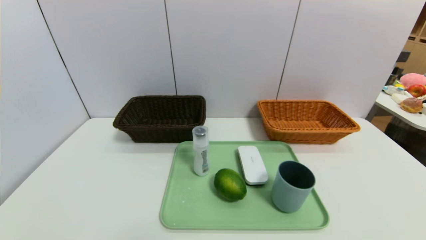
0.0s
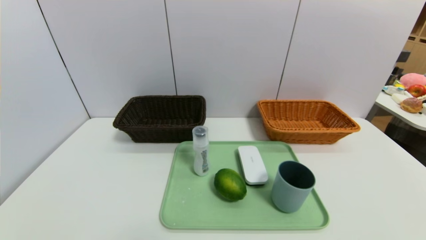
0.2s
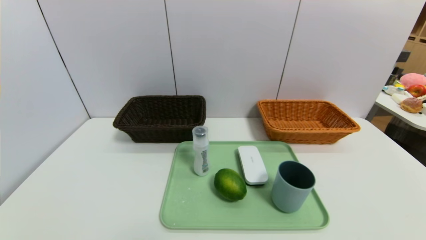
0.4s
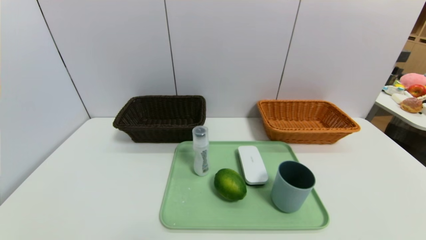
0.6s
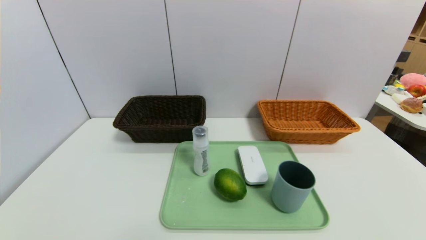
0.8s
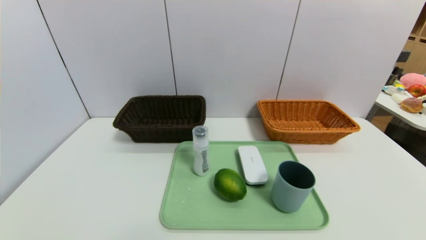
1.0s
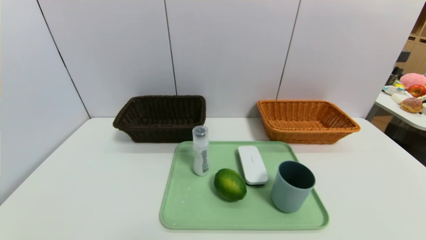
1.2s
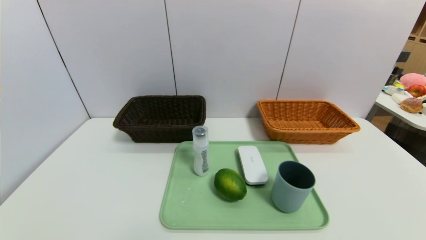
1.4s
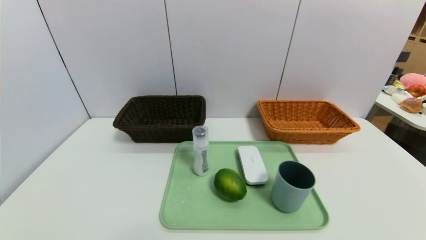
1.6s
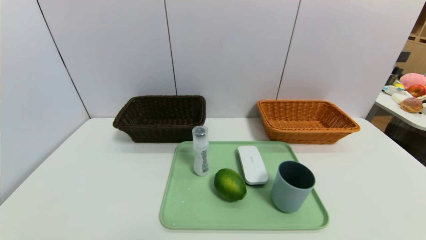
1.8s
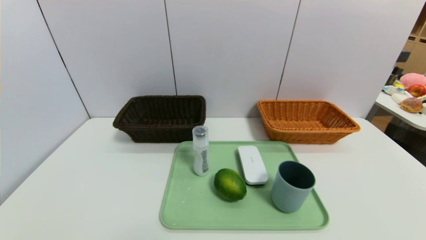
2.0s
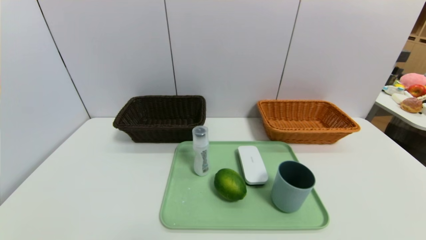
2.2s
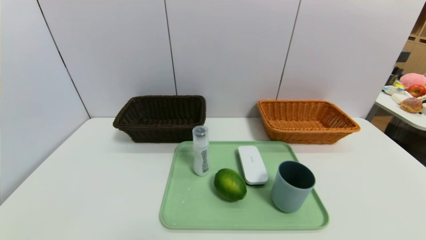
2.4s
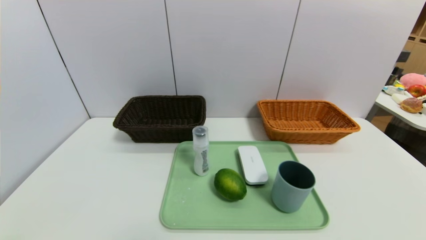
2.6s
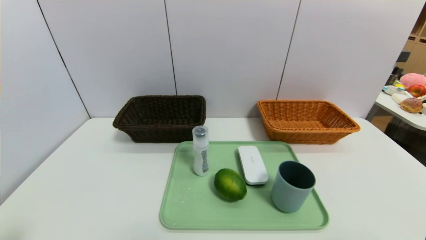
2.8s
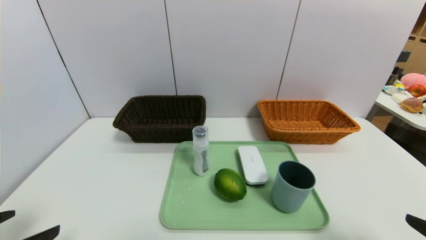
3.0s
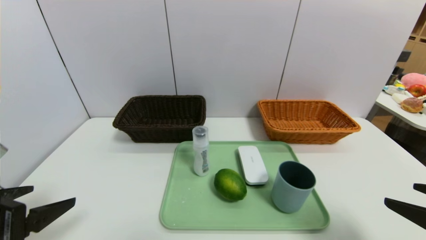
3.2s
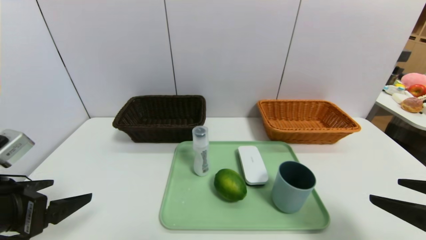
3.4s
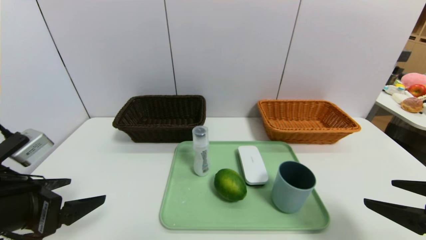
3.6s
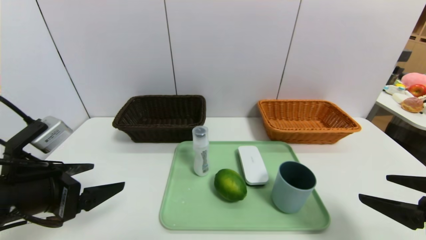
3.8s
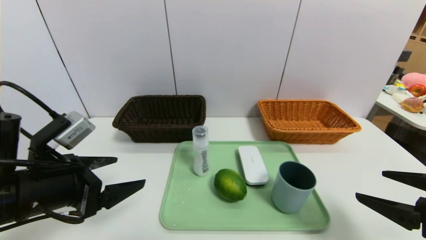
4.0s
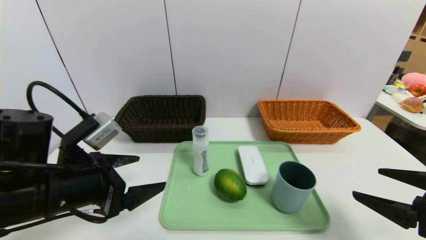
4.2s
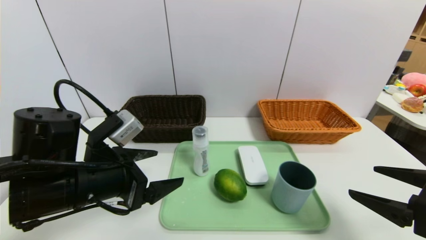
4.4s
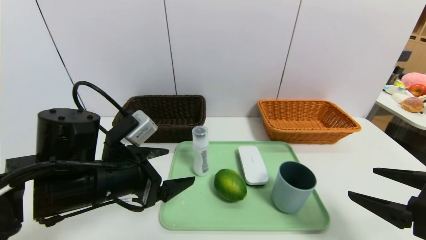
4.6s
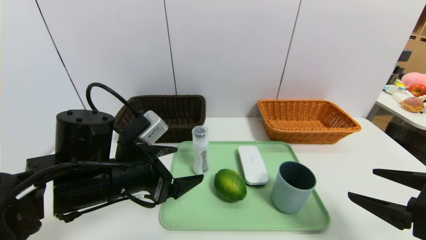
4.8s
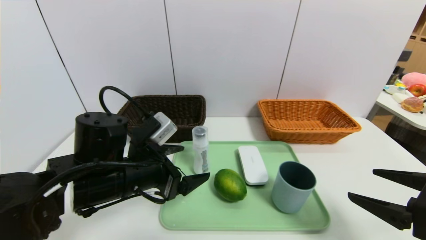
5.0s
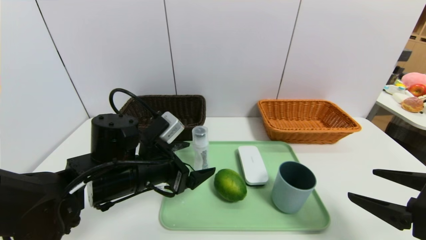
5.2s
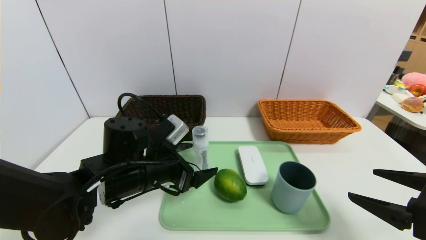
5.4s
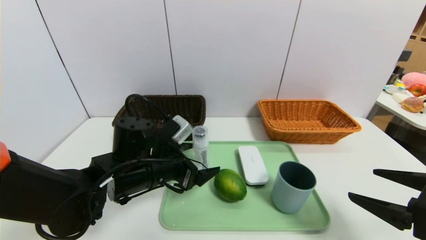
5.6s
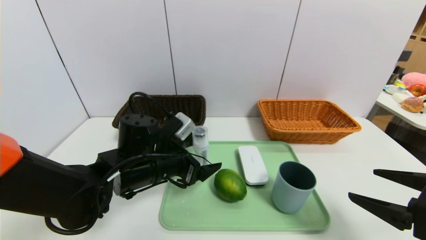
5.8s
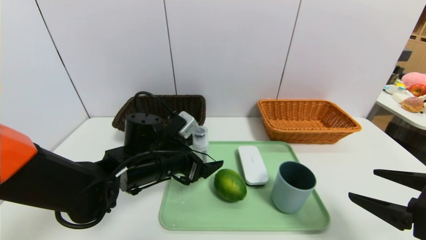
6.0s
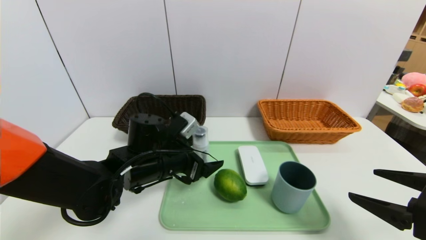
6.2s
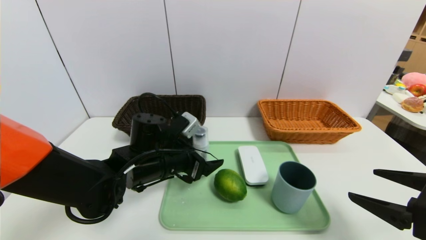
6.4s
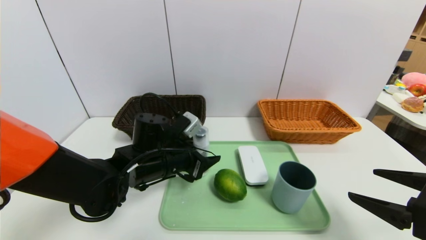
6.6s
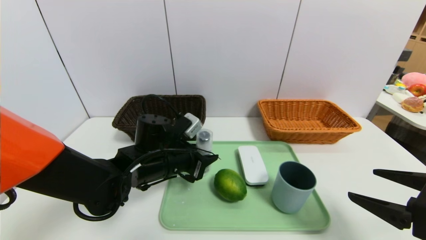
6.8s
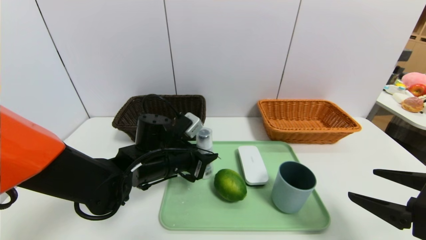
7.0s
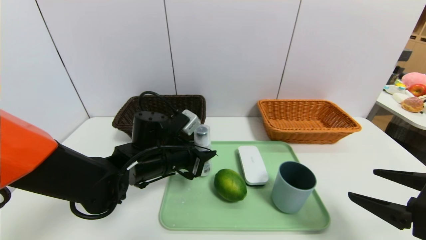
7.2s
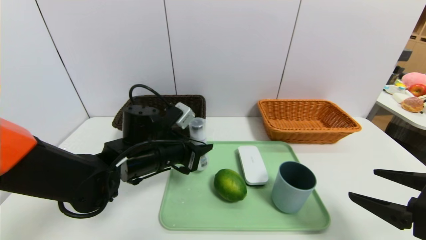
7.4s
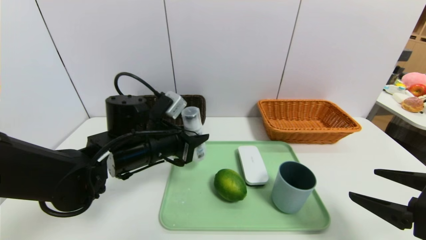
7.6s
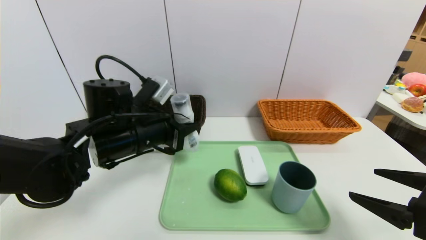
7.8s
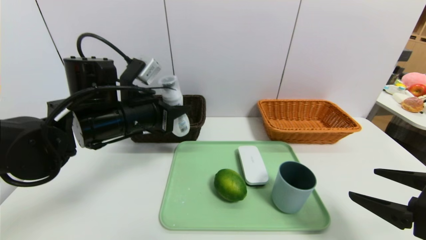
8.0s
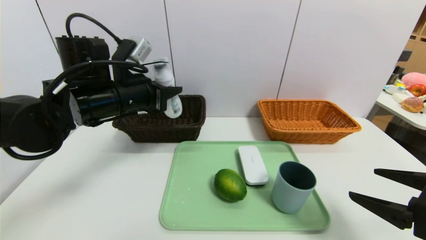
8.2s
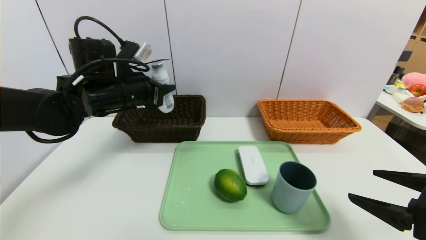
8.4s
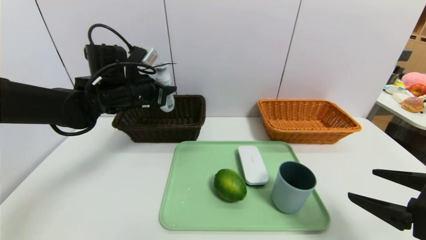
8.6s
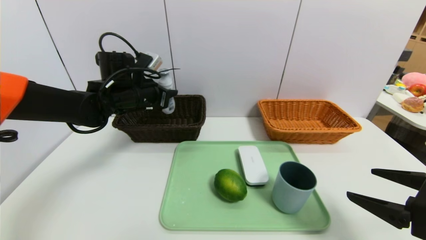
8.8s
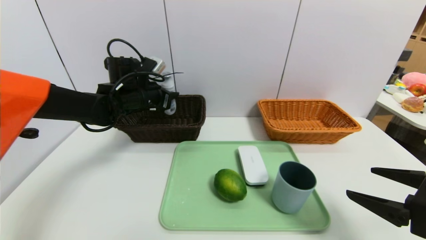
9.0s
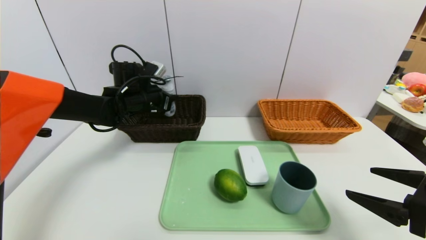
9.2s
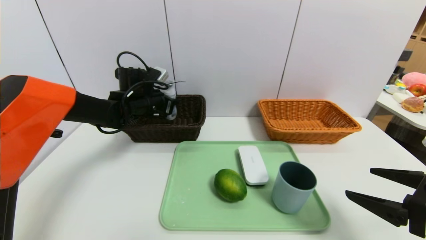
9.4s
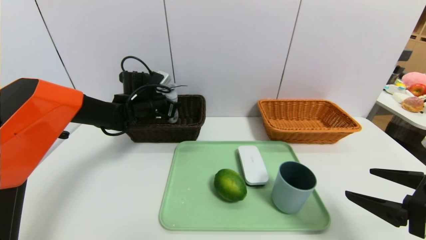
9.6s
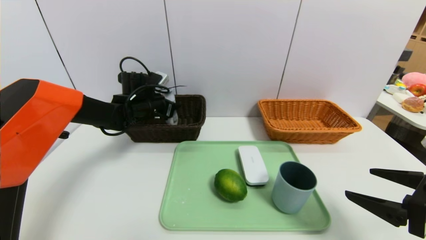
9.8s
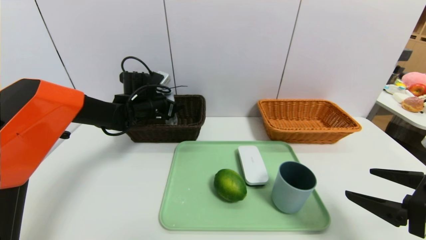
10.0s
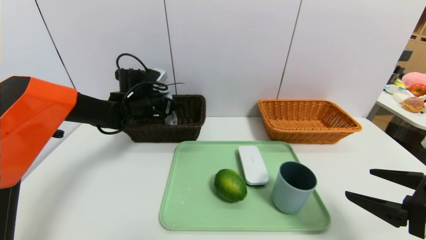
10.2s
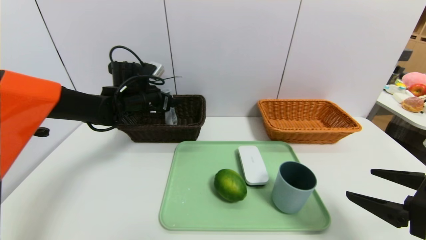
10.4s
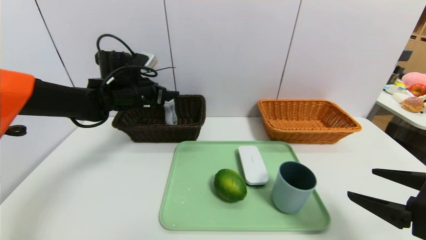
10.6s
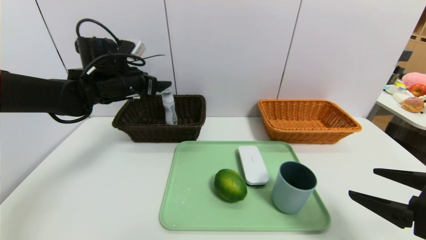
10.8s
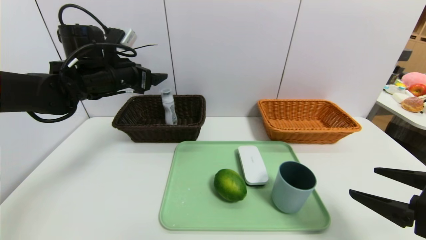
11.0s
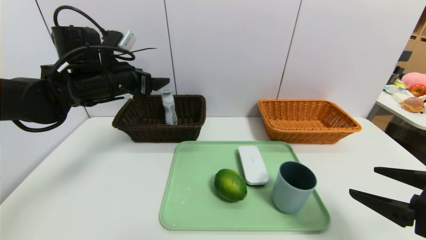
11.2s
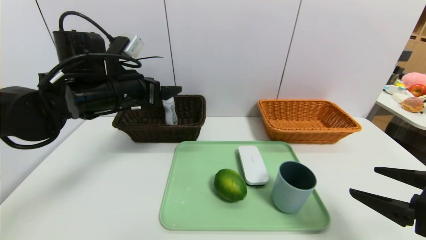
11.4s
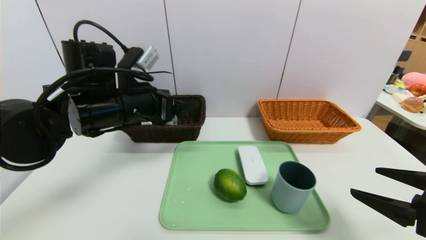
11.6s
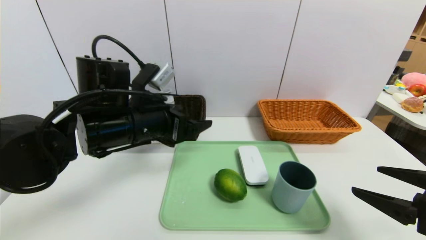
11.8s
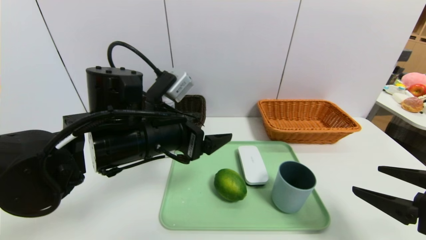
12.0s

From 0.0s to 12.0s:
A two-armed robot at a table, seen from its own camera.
Task of the whole recording: place the food in the right basket with the right gripper, and place the non food items in the left basket with the left gripper.
Step, from 0.0s to 11.2s: Grasp the detergent and put it in the left basket.
From 0.0s to 1.6s: Neither gripper changes place.
From 1.6s to 3.0s: Both grippers travel together upward and forward, about 15 cm.
From 3.0s to 4.4s: The right gripper travels forward by some 10 cm. The left gripper is displaced forward and to the right by roughly 15 cm.
From 4.4s to 6.0s: The left gripper goes some 10 cm forward, to the right and downward.
From 6.0s to 7.6s: The left gripper closes.
From 7.6s to 9.0s: The left gripper shifts approximately 15 cm forward and to the left.
From 9.0s to 10.4s: The left gripper opens.
From 10.4s to 12.0s: The left gripper moves backward and to the right, approximately 20 cm.

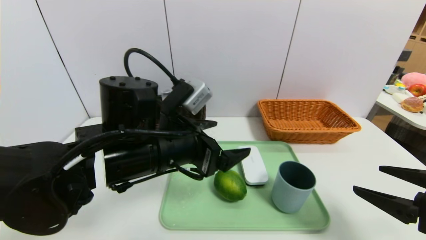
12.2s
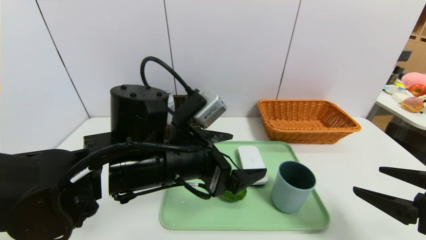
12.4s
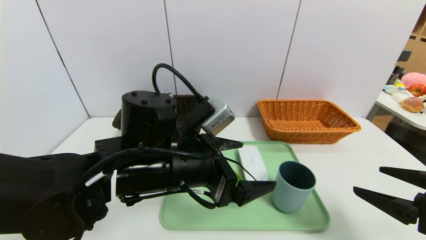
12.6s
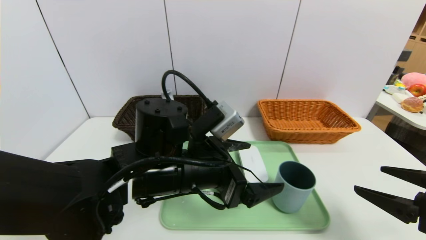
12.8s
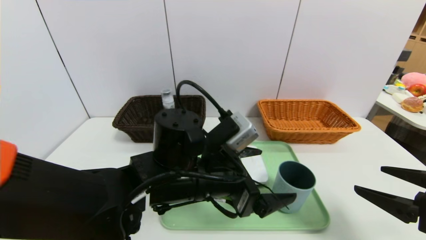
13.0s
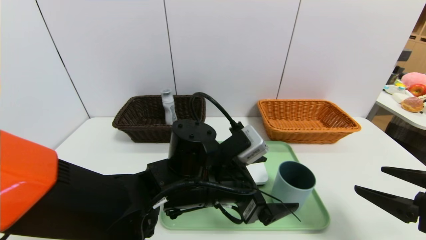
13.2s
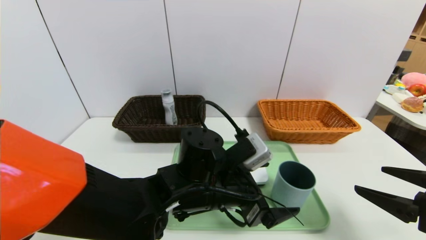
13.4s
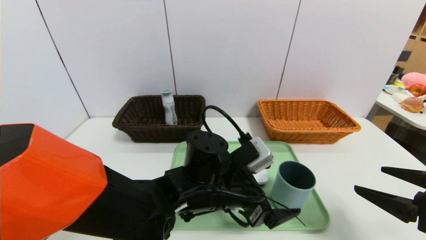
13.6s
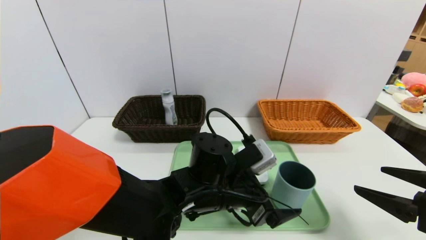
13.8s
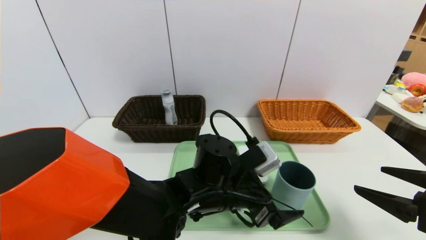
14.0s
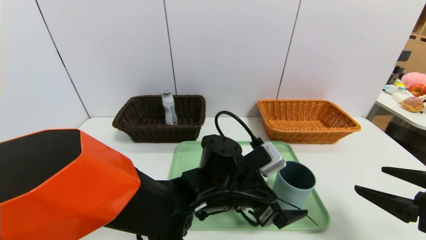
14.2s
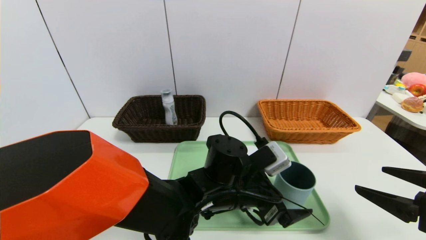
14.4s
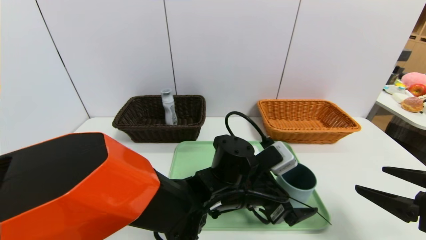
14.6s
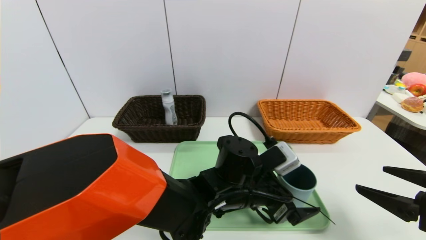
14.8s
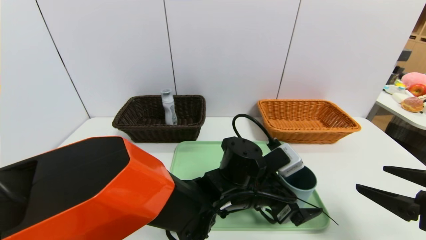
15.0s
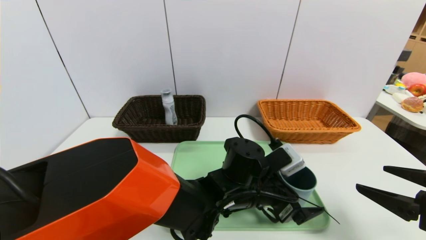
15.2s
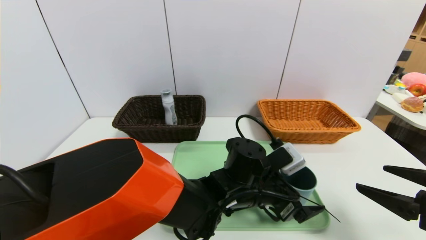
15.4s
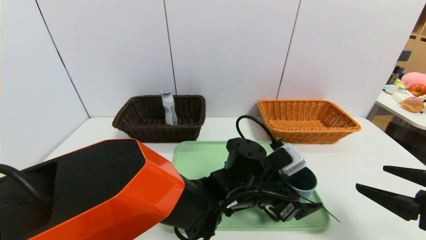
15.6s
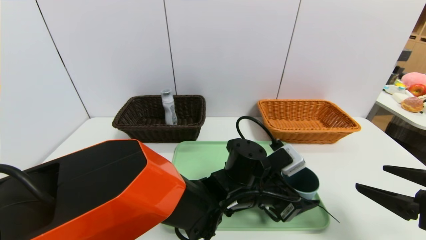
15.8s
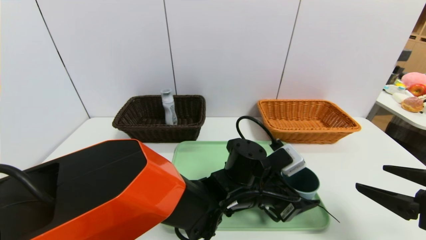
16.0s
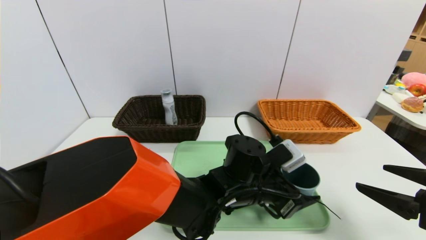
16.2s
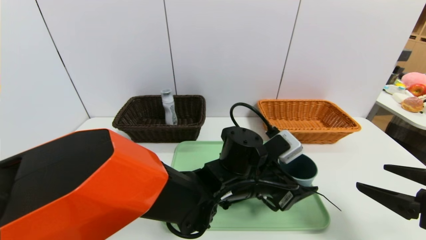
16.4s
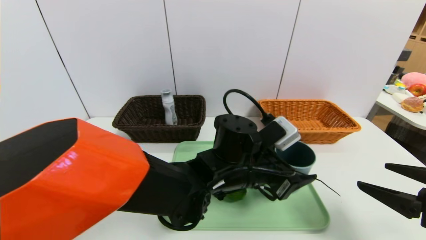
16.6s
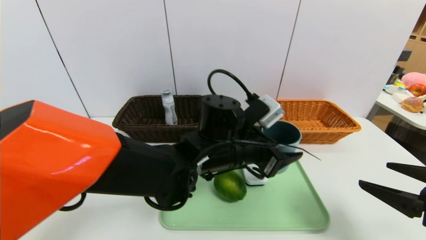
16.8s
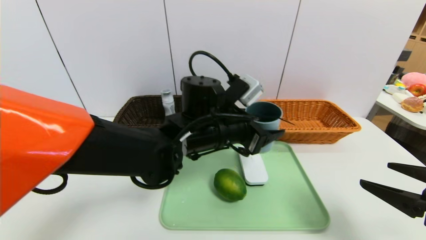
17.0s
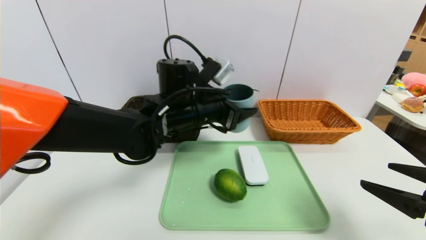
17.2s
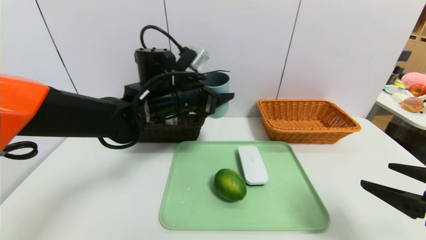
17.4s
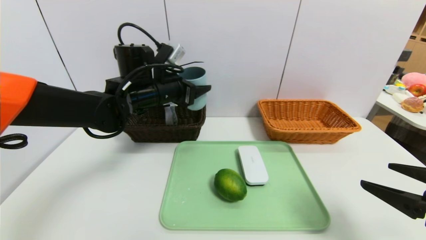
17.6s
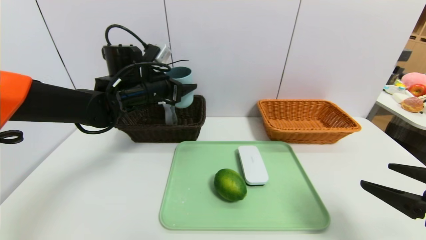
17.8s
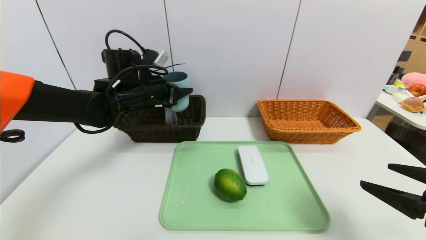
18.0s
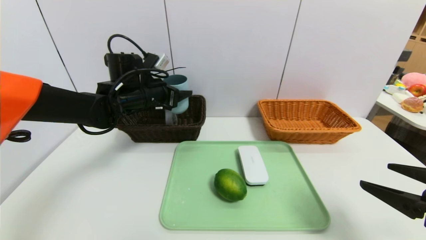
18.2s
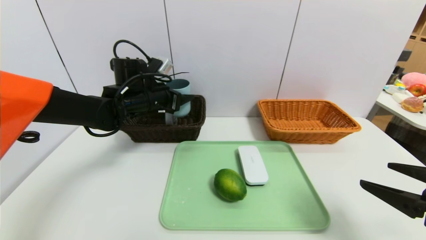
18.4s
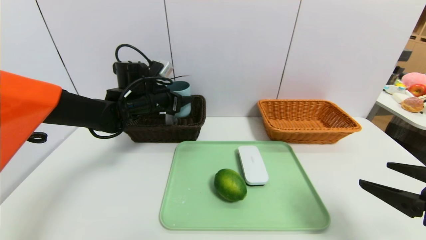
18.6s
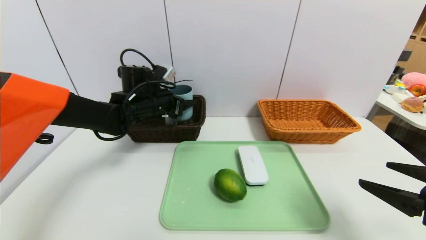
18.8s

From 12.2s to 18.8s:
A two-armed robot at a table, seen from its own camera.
Task of the whole recording: place the food in the right basket with the right gripper, and place the non food items in the left basket with the left gripper.
From 12.2s to 13.8s: The left gripper moves downward and to the right, some 15 cm.
From 13.8s to 15.4s: The left gripper travels to the right by some 5 cm.
From 15.4s to 17.2s: The left gripper shifts about 20 cm upward, to the left and forward, and closes up.
From 17.2s to 18.8s: The left gripper goes roughly 15 cm to the left and forward.
